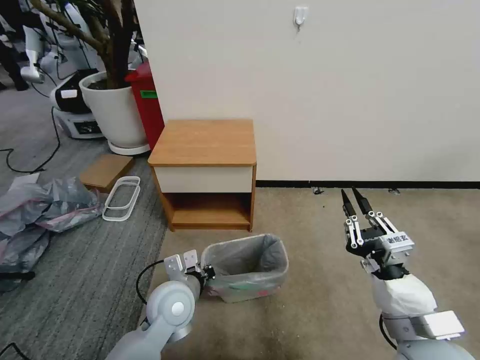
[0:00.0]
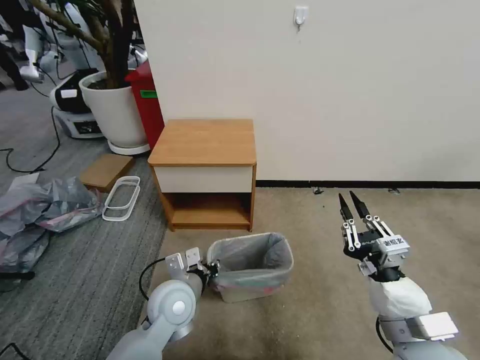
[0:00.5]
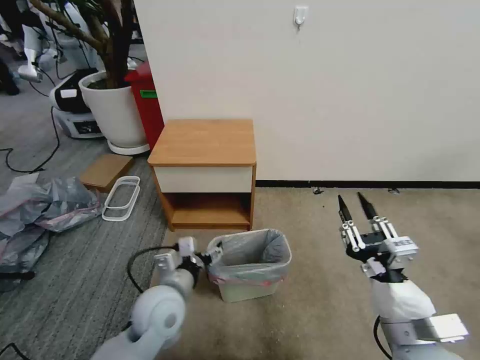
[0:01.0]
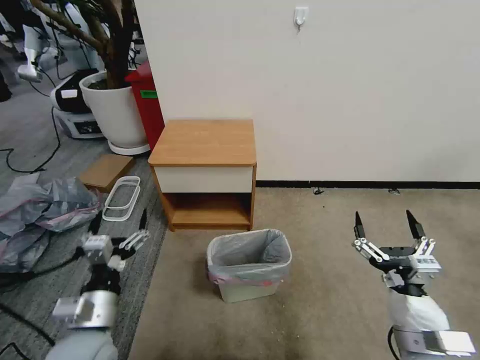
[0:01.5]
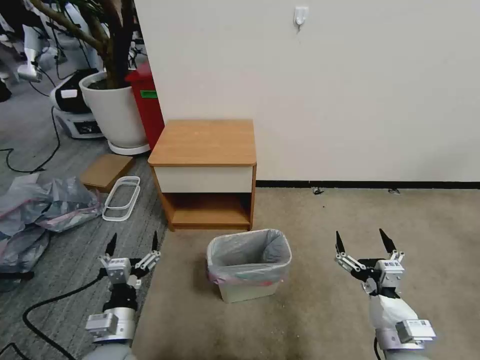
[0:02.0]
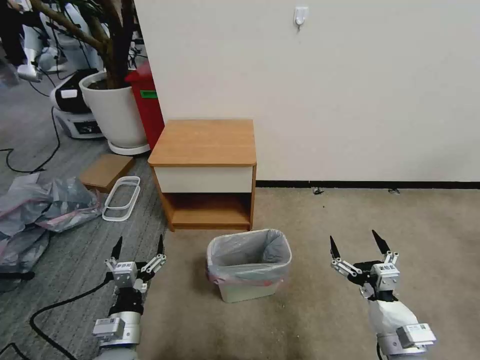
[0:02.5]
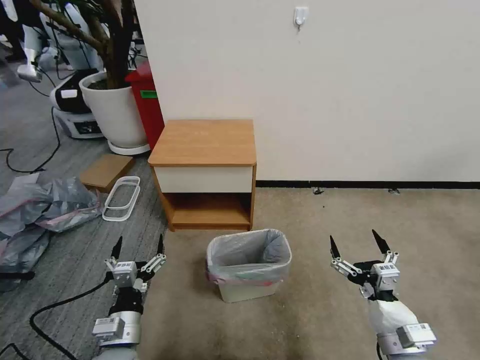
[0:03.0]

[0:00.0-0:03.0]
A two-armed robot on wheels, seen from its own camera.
Task of the whole recording: Pick up the garbage bag from the table and place it over the trash can.
0:00.0 to 0:01.5: The right gripper shifts approximately 5 cm downward, and opens up. Meanwhile the left gripper goes approximately 15 cm to the left and backward, and opens its fingers.
0:01.5 to 0:03.0: The left gripper heads downward, covering approximately 10 cm.

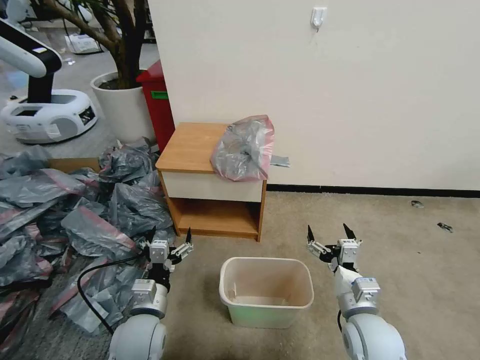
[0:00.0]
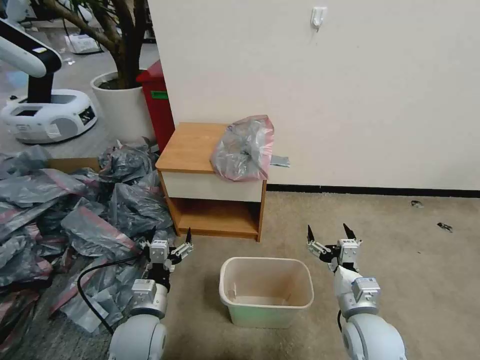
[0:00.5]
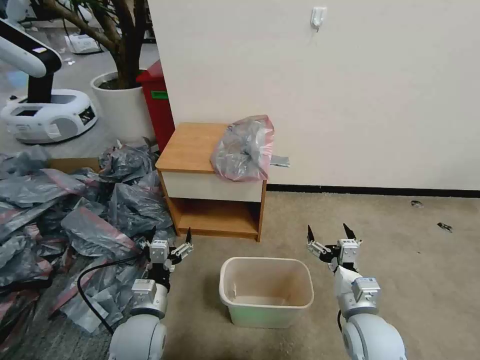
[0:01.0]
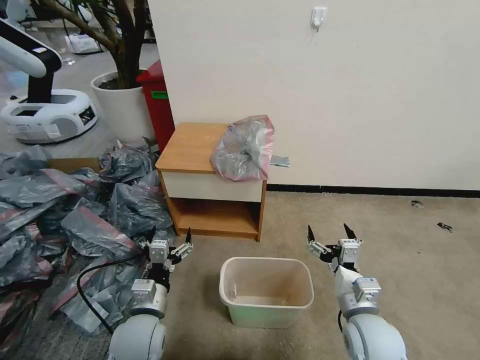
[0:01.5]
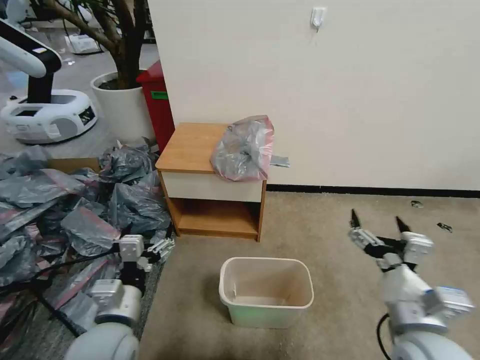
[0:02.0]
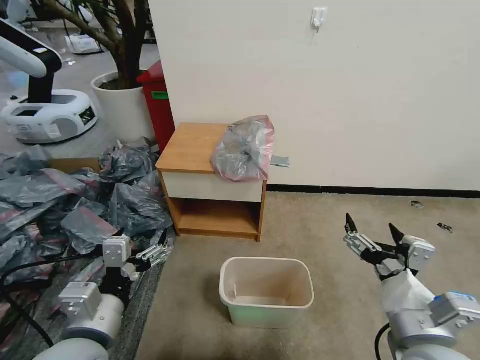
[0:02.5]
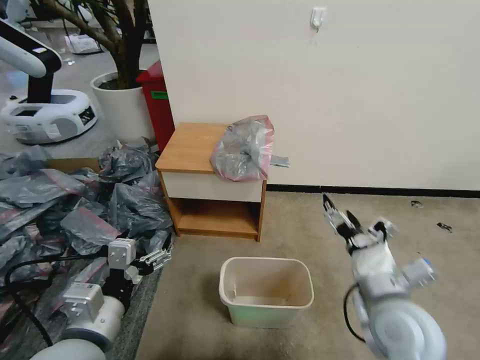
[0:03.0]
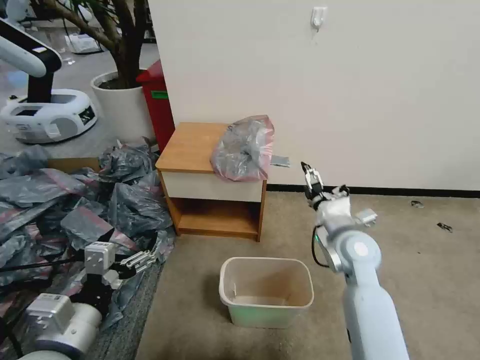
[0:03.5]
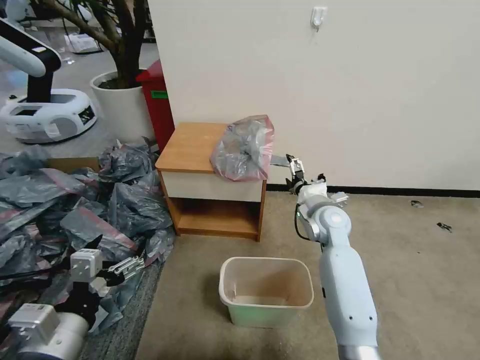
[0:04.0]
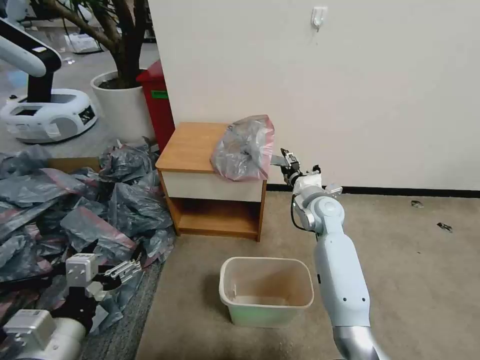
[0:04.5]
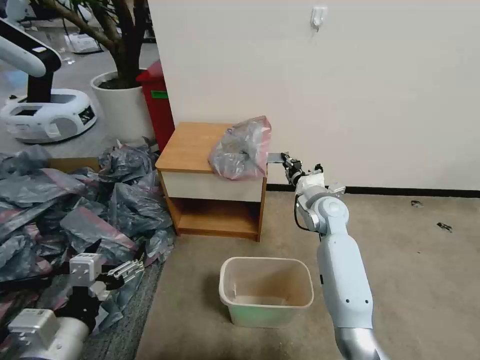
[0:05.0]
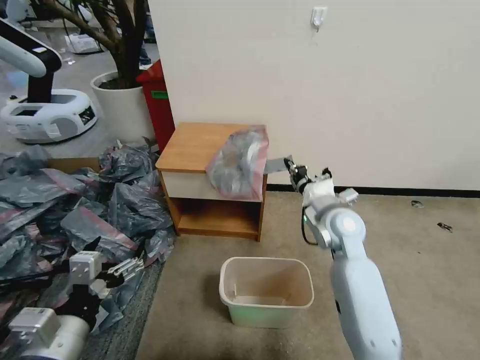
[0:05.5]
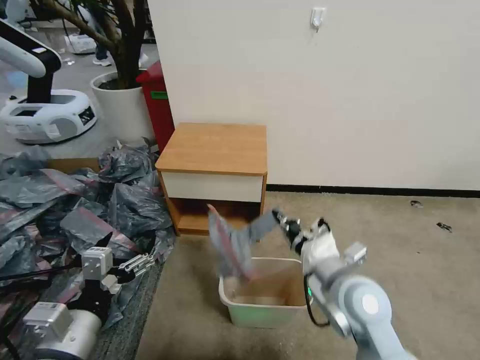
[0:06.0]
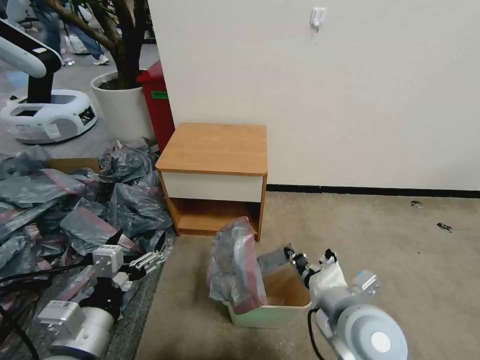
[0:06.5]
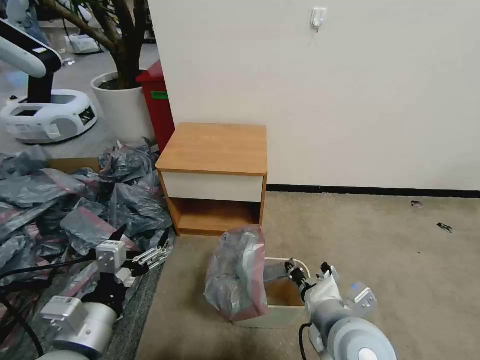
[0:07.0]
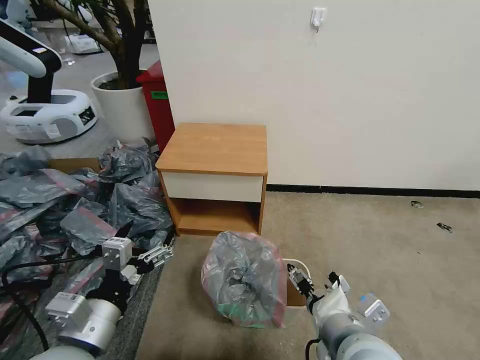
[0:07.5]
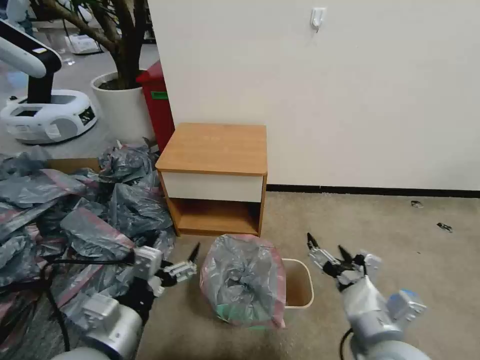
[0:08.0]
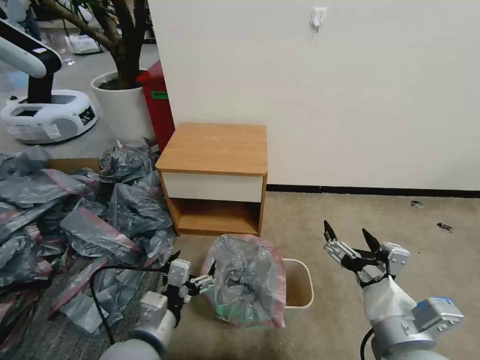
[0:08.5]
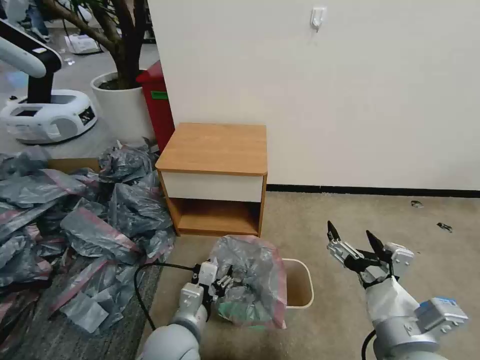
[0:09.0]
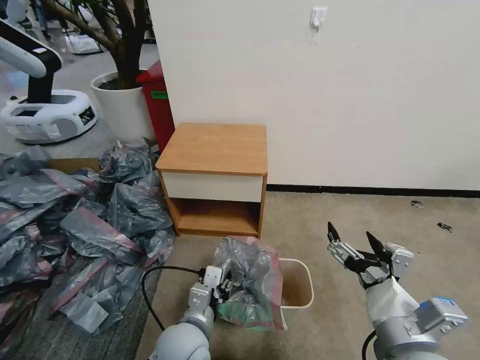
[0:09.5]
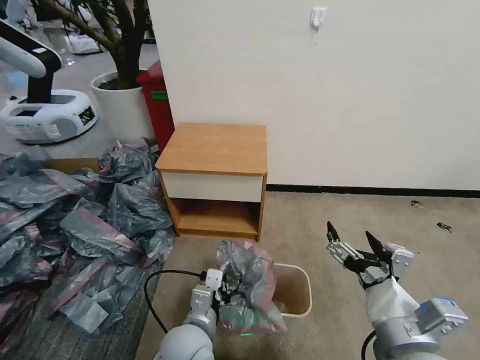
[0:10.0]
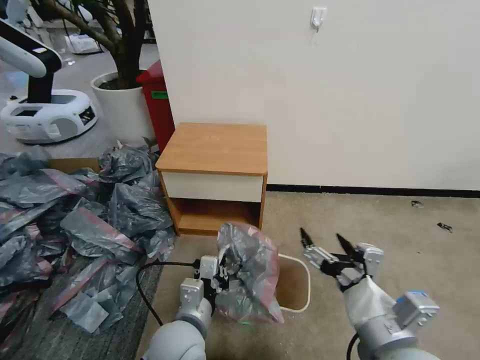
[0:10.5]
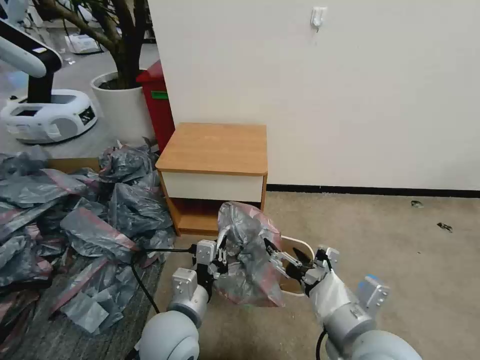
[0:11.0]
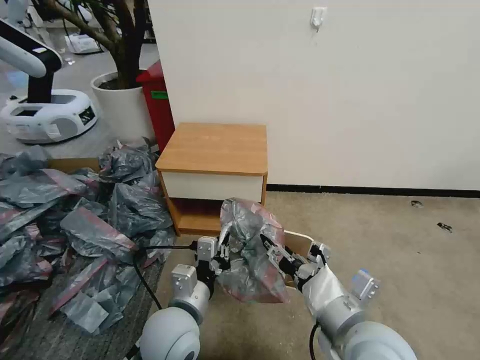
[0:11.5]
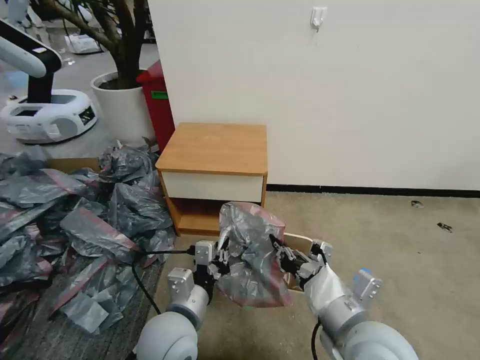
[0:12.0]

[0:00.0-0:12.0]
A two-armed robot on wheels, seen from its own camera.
Task of the whole recording: Pick up the garbage bag from the table and place it over the trash can.
0:02.0 to 0:04.0: The left gripper goes some 10 cm upward, backward and to the left, while the right gripper moves forward, approximately 30 cm.
0:04.0 to 0:06.0: The right gripper shifts some 20 cm backward, and closes.
0:06.0 to 0:08.0: The right gripper heads backward, covering approximately 10 cm, and opens.
0:08.0 to 0:10.0: The left gripper goes about 15 cm to the right, downward and forward, and closes its fingers.
0:10.0 to 0:12.0: The right gripper shifts by approximately 5 cm, and closes, while the left gripper goes some 5 cm upward.

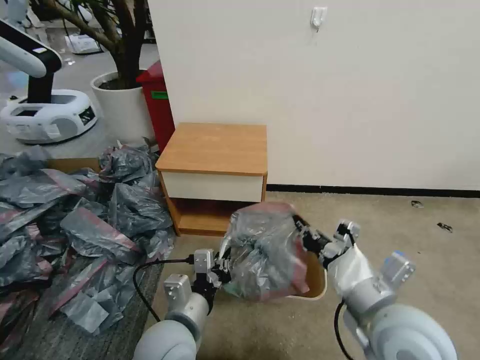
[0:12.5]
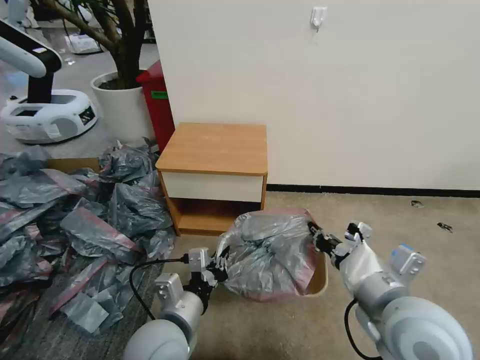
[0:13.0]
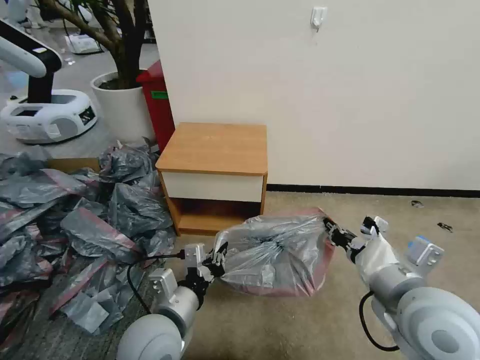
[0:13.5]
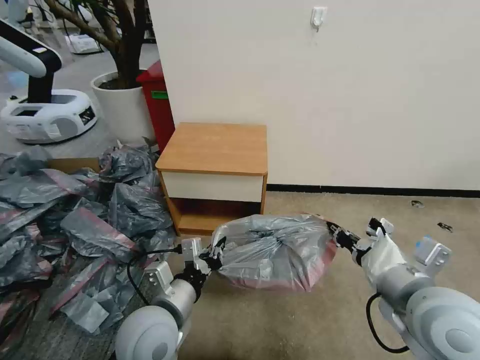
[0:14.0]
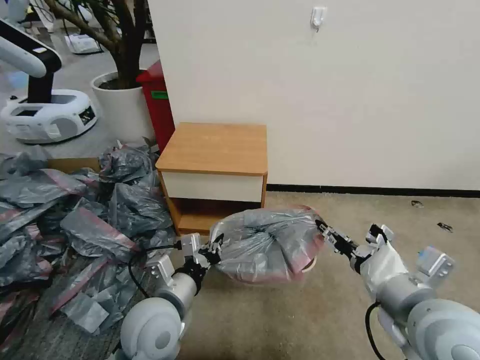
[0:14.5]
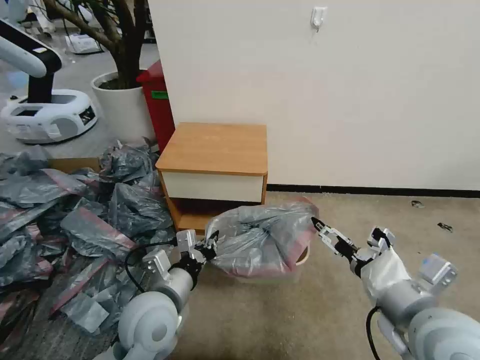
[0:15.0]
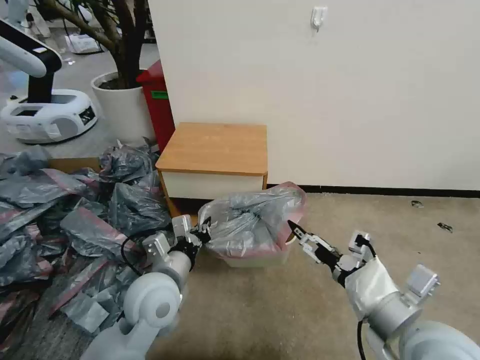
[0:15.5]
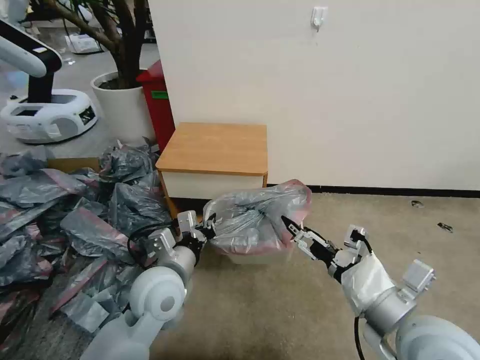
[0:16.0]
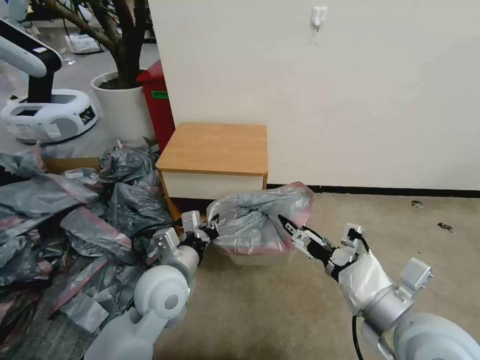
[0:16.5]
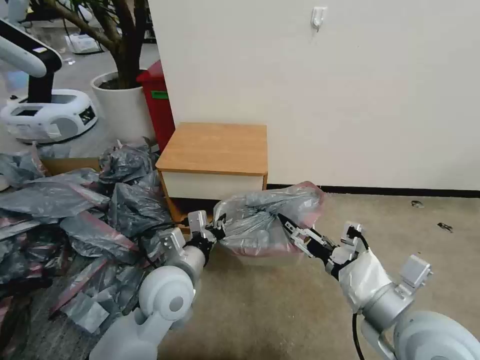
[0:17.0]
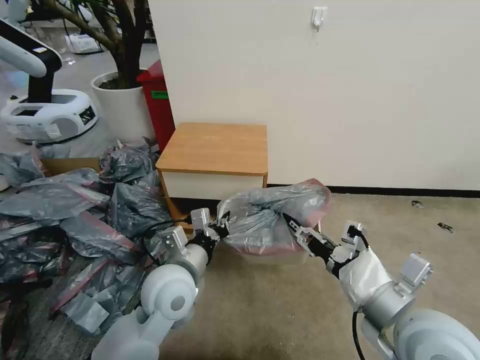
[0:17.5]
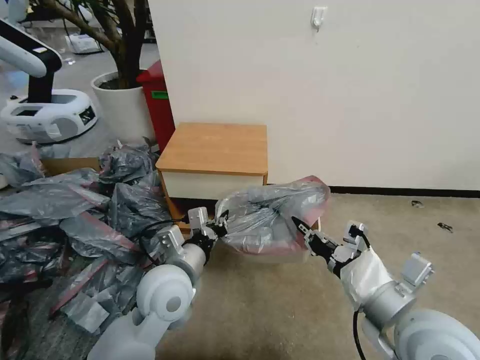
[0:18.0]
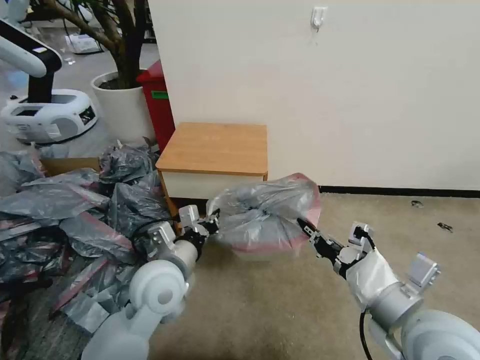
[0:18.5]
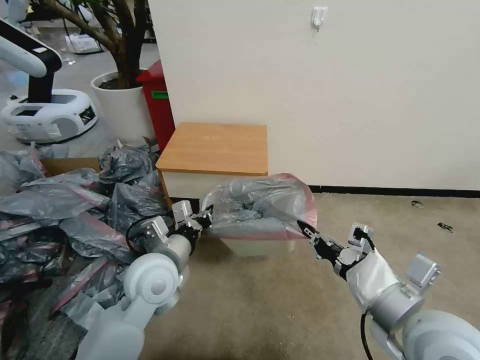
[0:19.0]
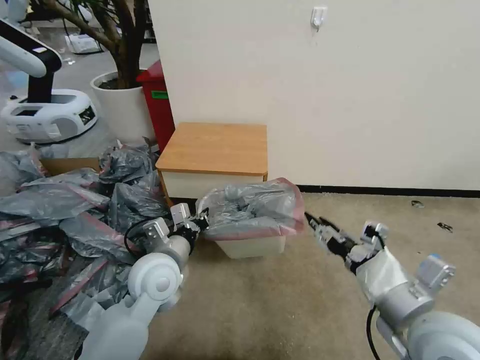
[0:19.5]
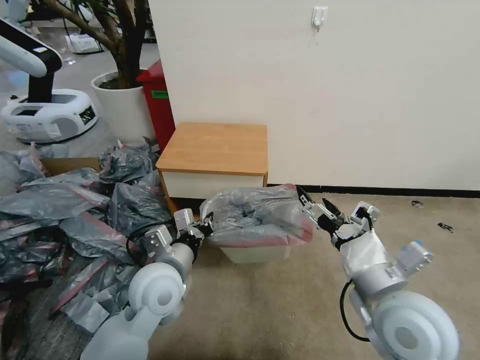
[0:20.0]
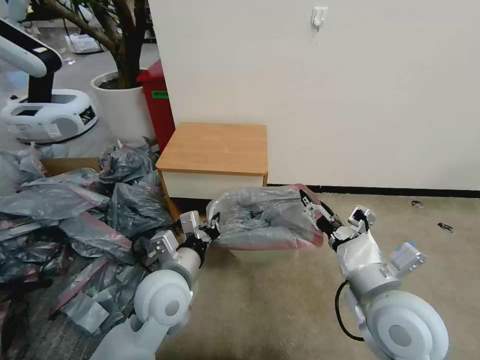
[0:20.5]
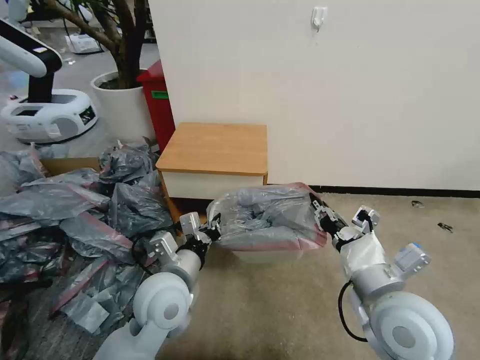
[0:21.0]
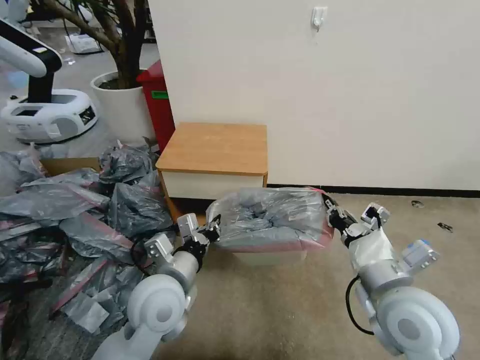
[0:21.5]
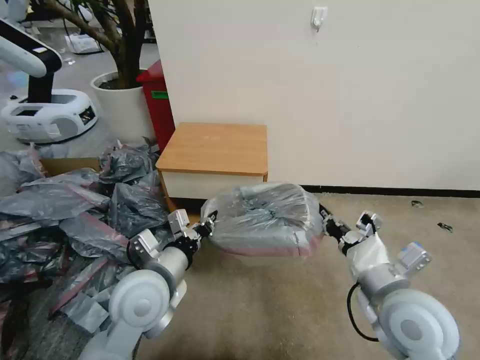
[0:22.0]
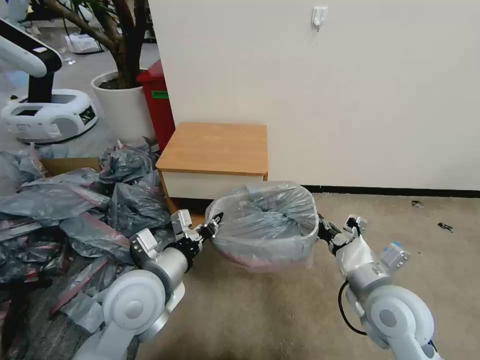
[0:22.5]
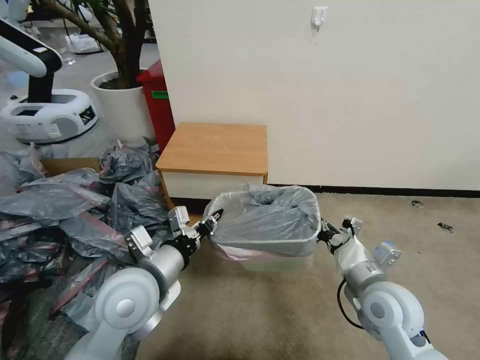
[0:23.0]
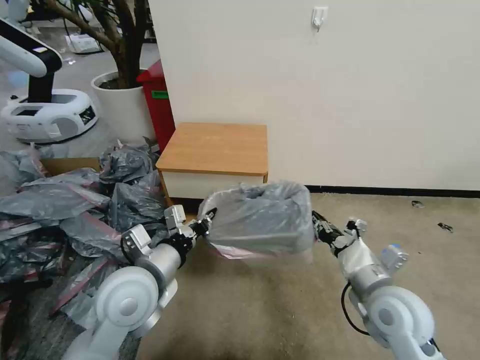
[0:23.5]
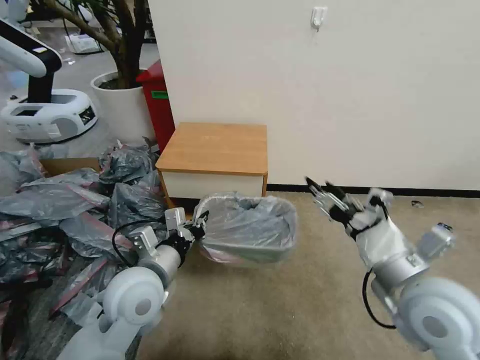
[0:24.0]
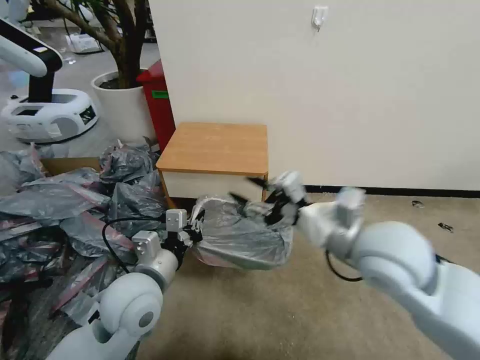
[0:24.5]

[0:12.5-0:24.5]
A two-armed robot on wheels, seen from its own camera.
Task of the whole recording: Pick up the garbage bag from the table and place it over the trash can.
0:12.5 to 0:14.5: The right gripper moves approximately 5 cm, and opens.
0:14.5 to 0:16.5: The right gripper opens its fingers. The left gripper travels forward by approximately 5 cm.
0:16.5 to 0:18.5: The right gripper closes up.
0:18.5 to 0:20.5: The right gripper opens its fingers.
0:20.5 to 0:22.5: The left gripper changes place by some 5 cm. Meanwhile the right gripper is displaced downward by approximately 5 cm, and closes up.
0:22.5 to 0:24.5: The right gripper moves upward, some 15 cm, and opens up.
